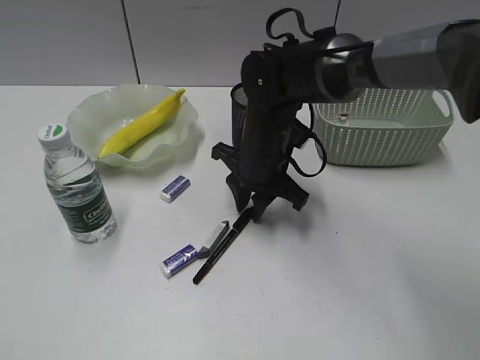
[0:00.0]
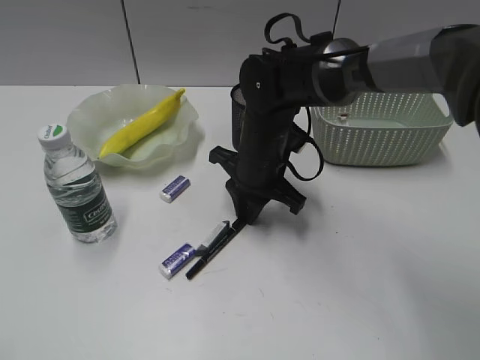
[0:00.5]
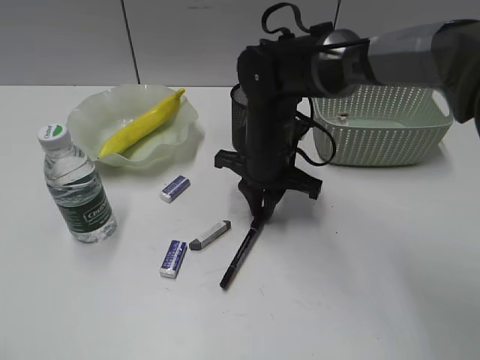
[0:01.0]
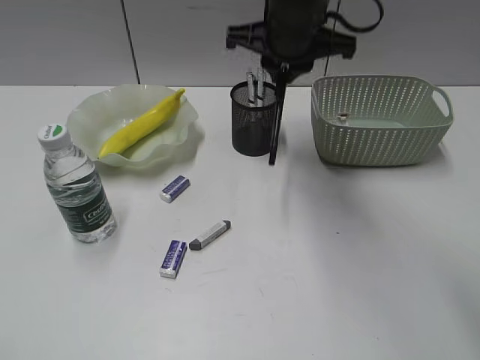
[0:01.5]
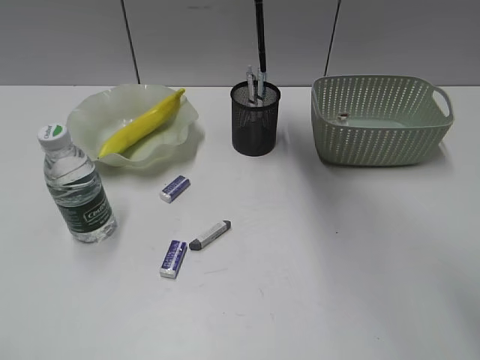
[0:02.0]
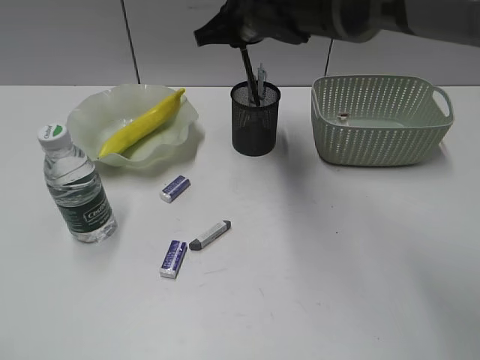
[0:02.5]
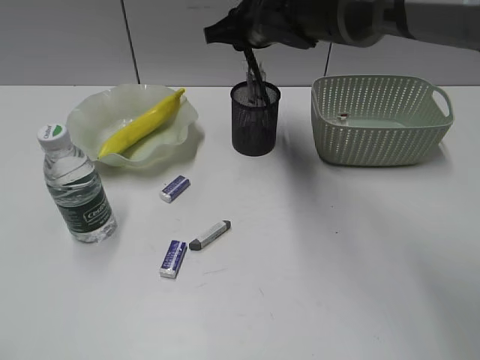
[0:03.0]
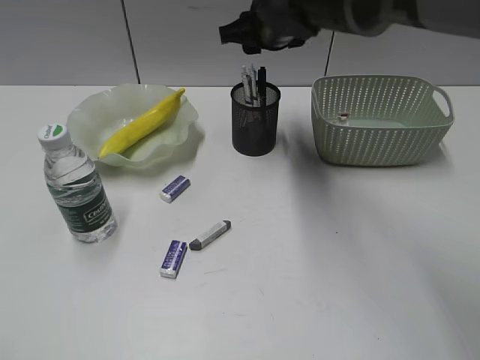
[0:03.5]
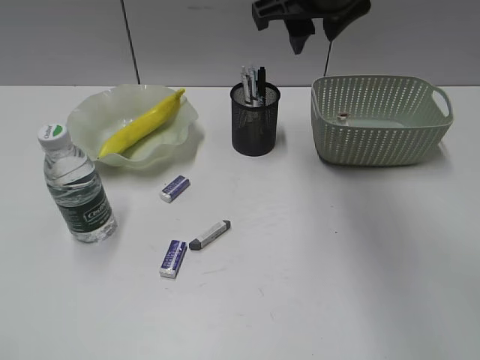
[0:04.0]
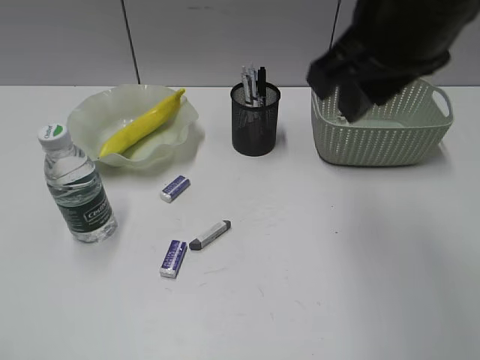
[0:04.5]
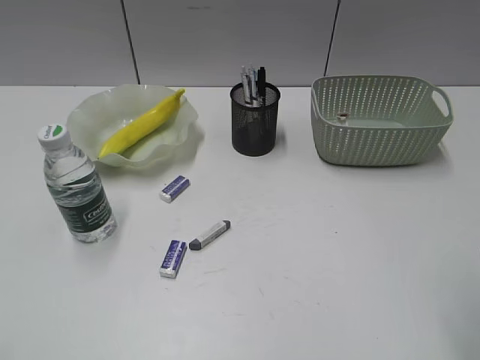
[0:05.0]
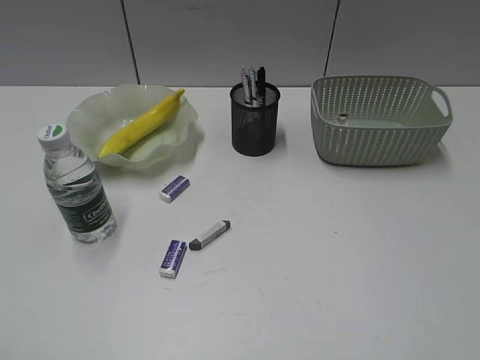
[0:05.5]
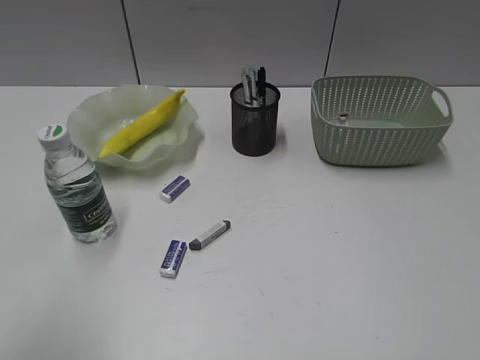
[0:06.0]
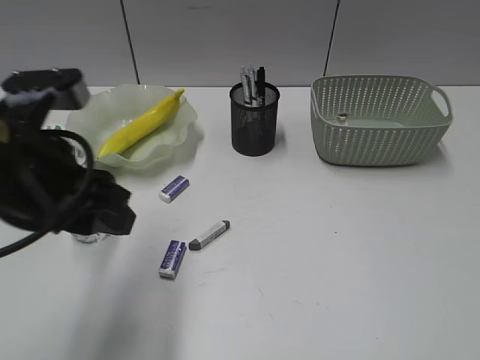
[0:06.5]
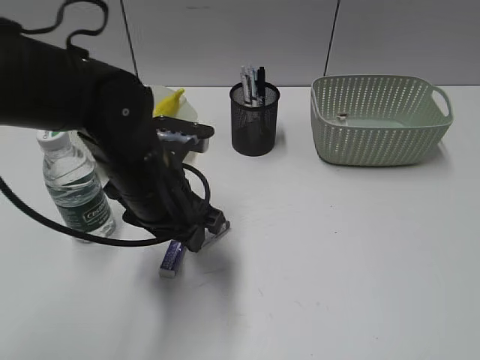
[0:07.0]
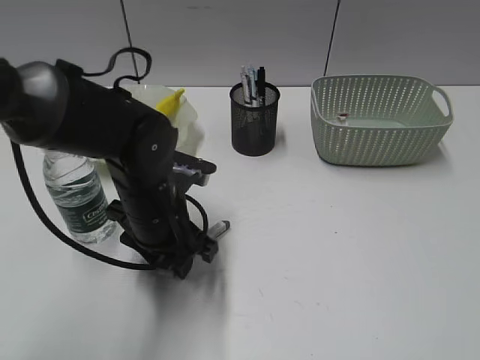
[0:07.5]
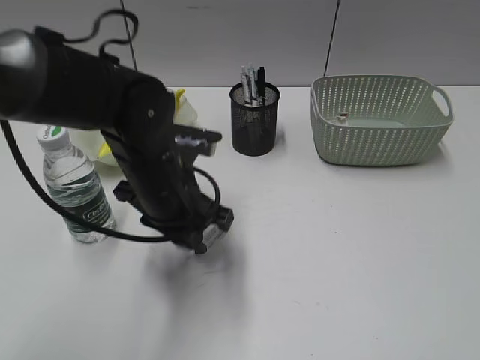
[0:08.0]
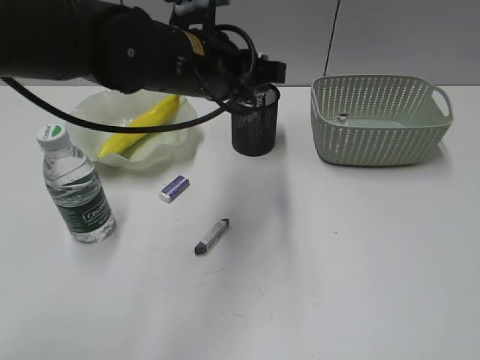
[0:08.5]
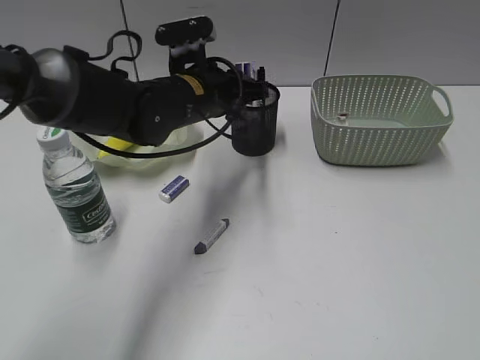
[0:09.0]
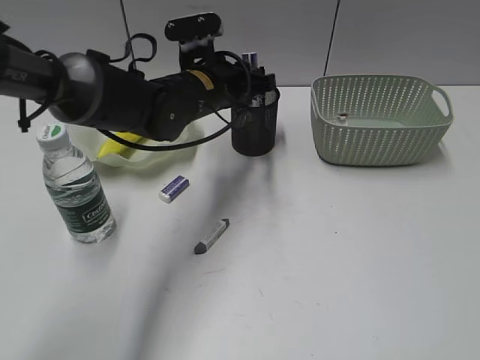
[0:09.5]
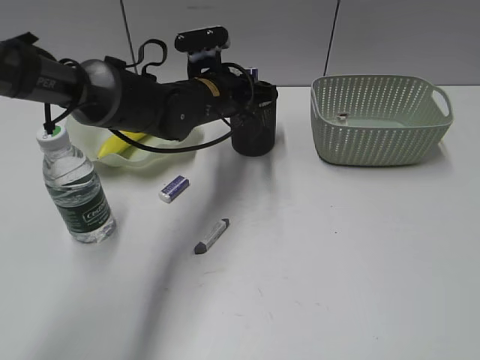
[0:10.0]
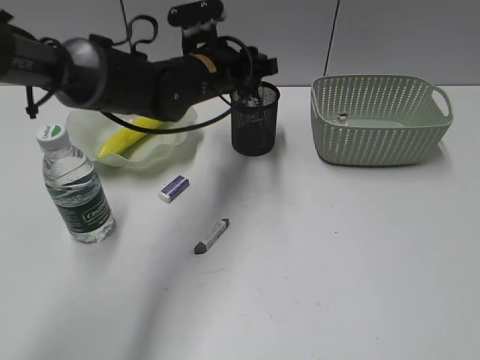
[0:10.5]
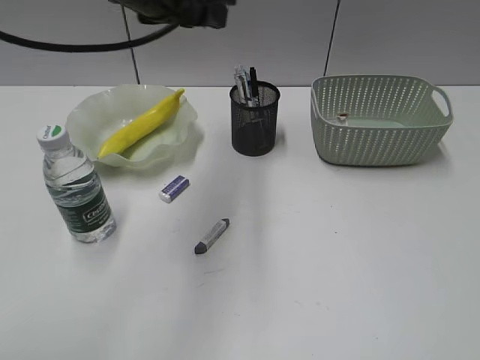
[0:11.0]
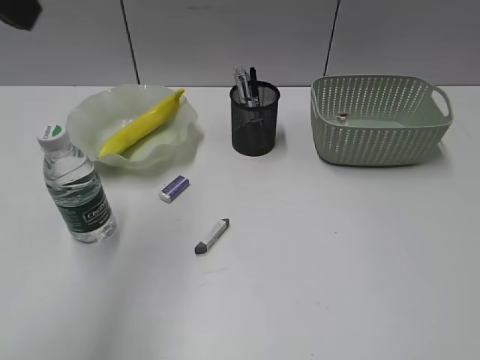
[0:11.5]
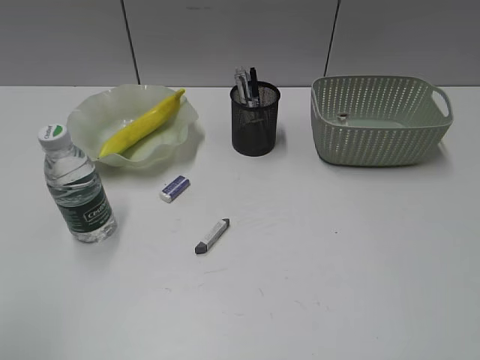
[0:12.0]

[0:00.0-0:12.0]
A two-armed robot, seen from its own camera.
Step, 0:01.0 to 0:03.0: Place the black pen in pen holder with right gripper.
Step, 0:03.5 to 0:07.5: Grasp the eraser with left gripper.
Step, 0:08.0 to 0:10.0: Place the eraser in pen holder with left gripper.
0:00.0 to 0:02.0: The right gripper moves upward, roughly 20 cm.
0:02.0 to 0:04.0: The right gripper reaches approximately 10 cm downward, then returns, and opens its fingers.
0:04.0 to 0:06.0: The left gripper shifts about 5 cm forward; the right gripper goes some 40 cm backward and to the right.
0:06.0 to 0:08.0: The left gripper travels forward, to the right and downward by approximately 35 cm.
0:08.0 to 0:10.0: The left gripper heads forward, covering some 15 cm.
0:10.0 to 0:12.0: The left gripper travels backward, to the left and upward by roughly 50 cm.

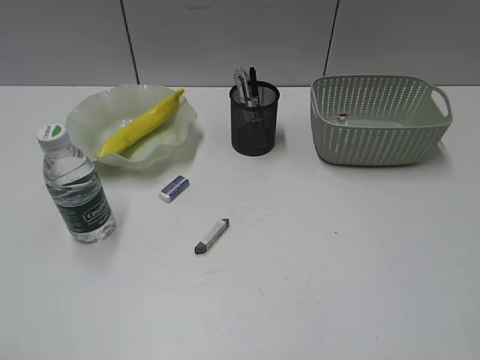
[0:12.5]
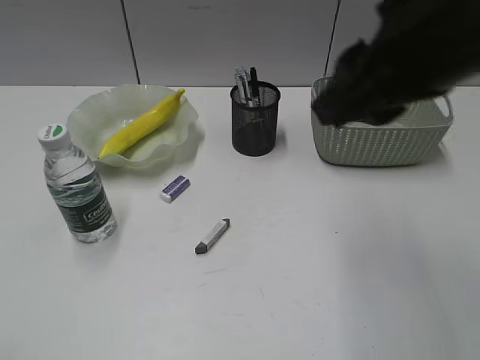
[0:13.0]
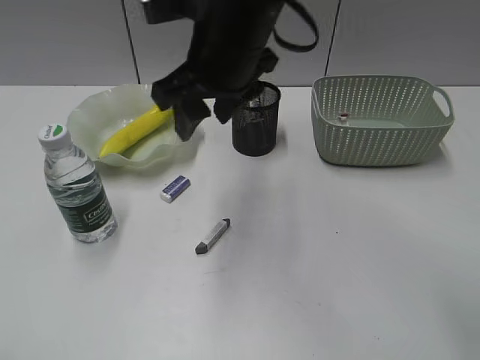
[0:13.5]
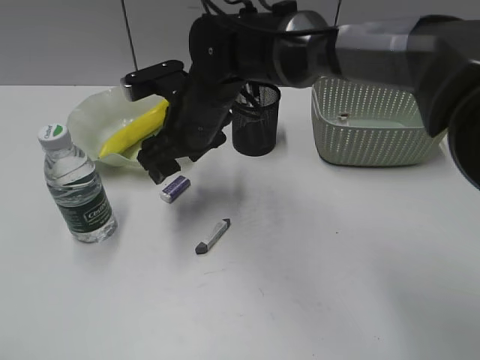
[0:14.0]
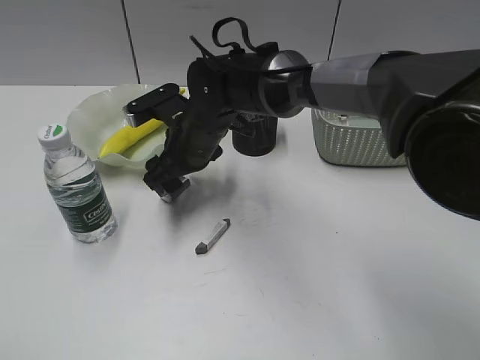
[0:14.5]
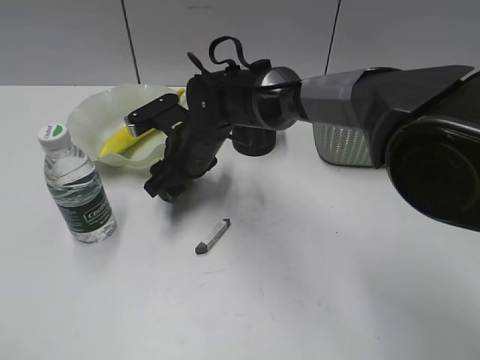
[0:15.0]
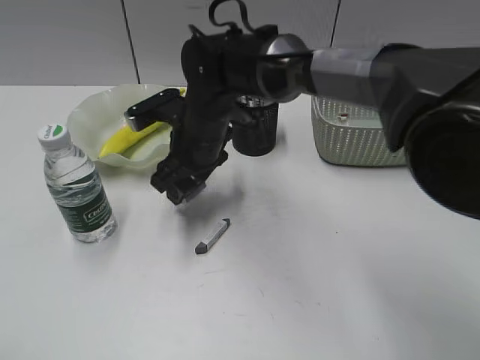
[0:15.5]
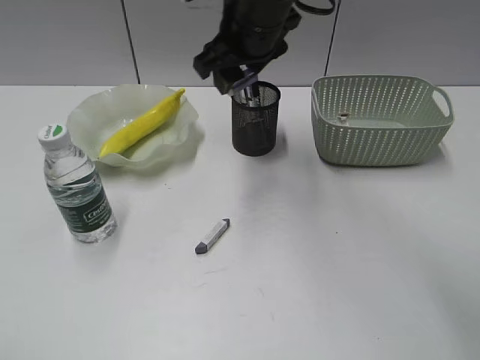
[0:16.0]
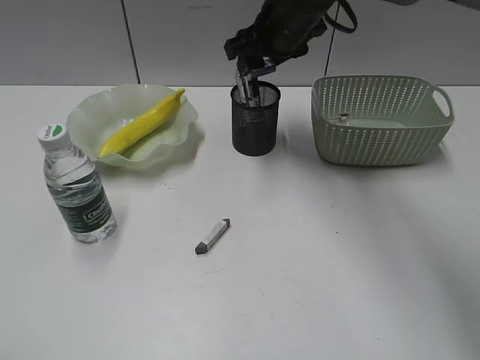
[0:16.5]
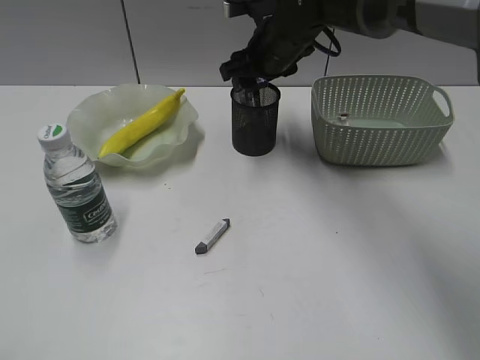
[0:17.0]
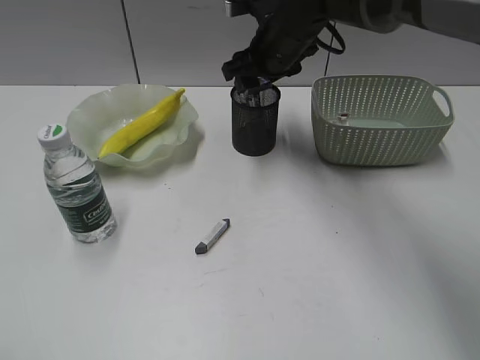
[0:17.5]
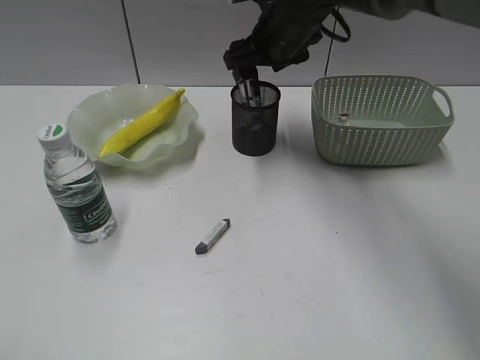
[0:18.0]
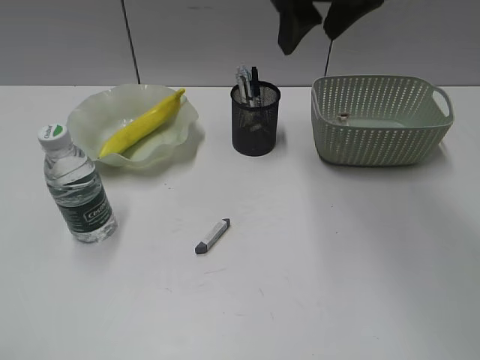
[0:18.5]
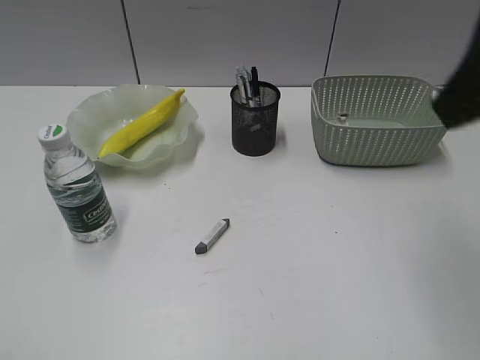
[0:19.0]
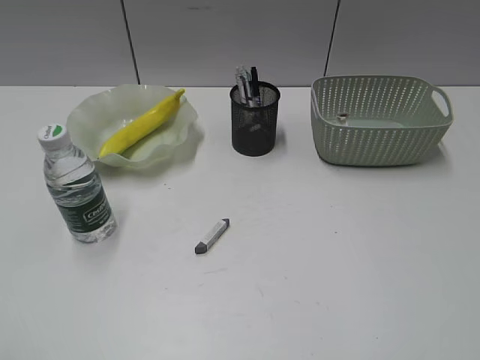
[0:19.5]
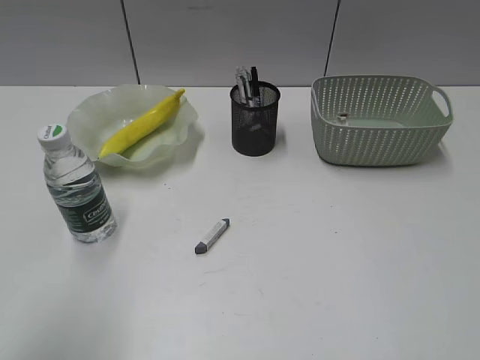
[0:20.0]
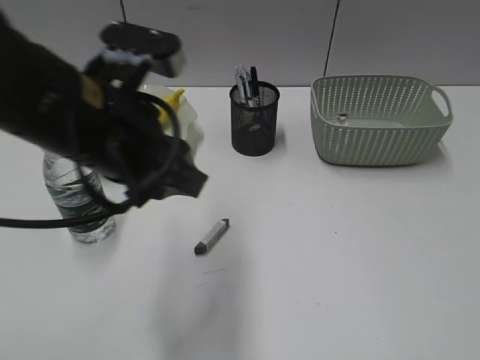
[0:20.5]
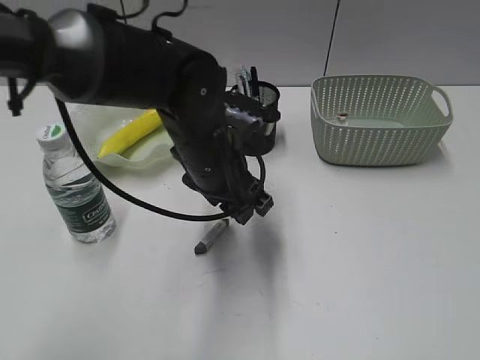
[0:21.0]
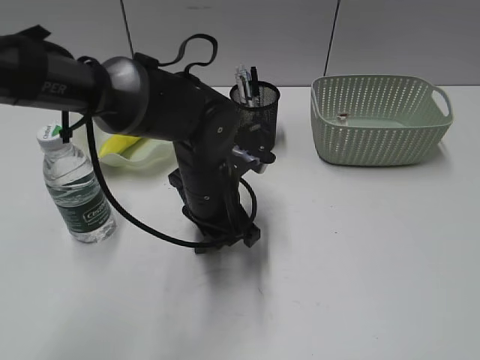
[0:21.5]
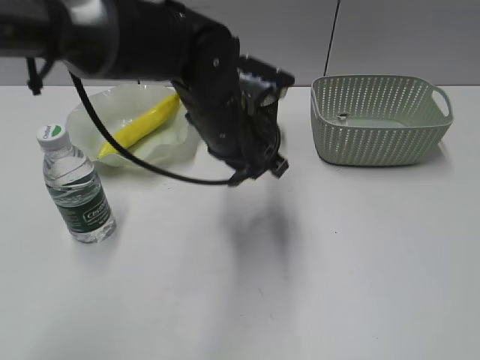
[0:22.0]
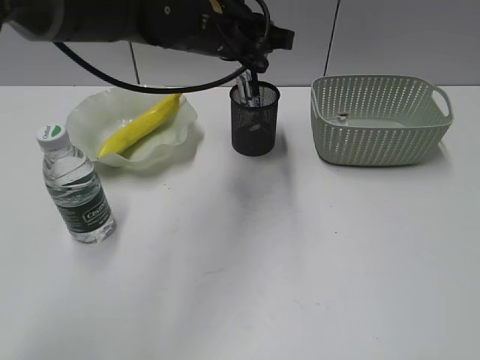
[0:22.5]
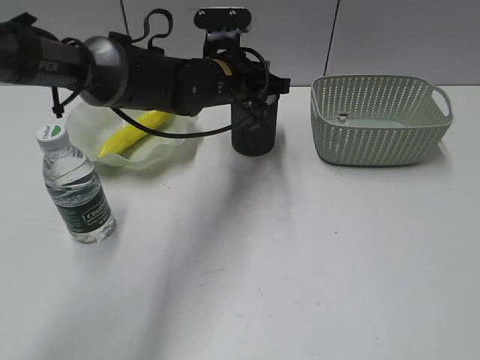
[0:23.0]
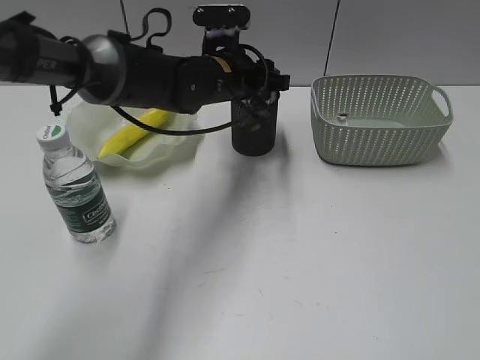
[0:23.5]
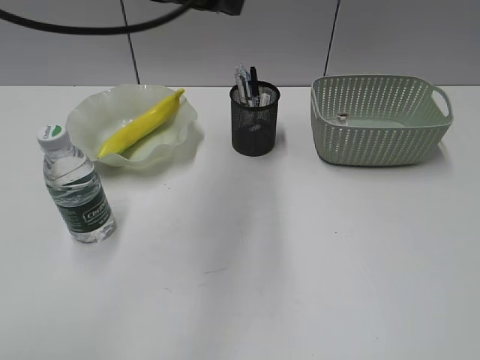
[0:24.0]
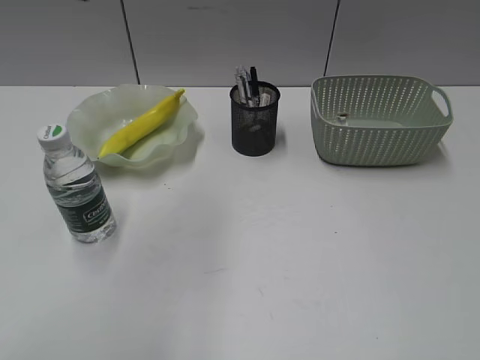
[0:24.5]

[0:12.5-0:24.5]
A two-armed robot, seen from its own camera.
Step, 0:12.5 to 0:15.0: Grasp the eraser with right gripper.
Step, 0:15.5 to 0:17.5: Place the eraser in pen holder with right gripper.
Step, 0:18.0 to 0:21.5: Grasp the eraser with left gripper.
Step, 0:22.0 to 0:23.0: Place the eraser in pen holder with left gripper.
0:12.5 to 0:14.5: The right gripper goes roughly 50 cm forward, to the left and downward, and opens its fingers.
0:14.5 to 0:16.5: The right gripper is displaced upward, to the right and forward by about 20 cm.
0:16.5 to 0:18.5: The right gripper goes some 10 cm upward and backward.
0:18.5 to 0:20.5: The right gripper is displaced backward and to the right by some 50 cm; the left gripper moves forward and to the right, approximately 30 cm.
0:20.5 to 0:22.5: The left gripper shifts about 20 cm forward and to the right, and opens, then closes again.
0:22.5 to 0:24.5: The left gripper heads upward, backward and to the left, covering approximately 25 cm, and opens.
